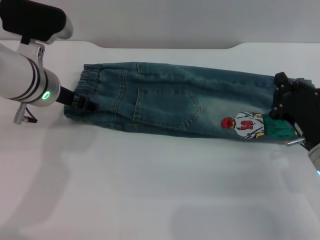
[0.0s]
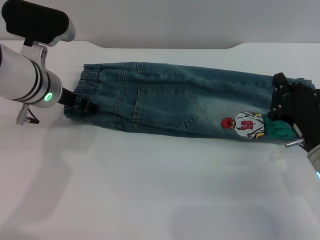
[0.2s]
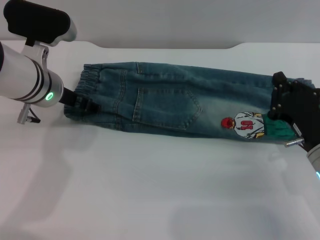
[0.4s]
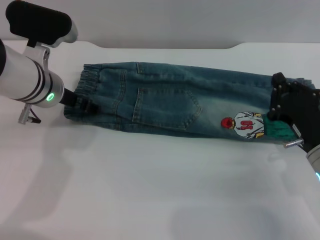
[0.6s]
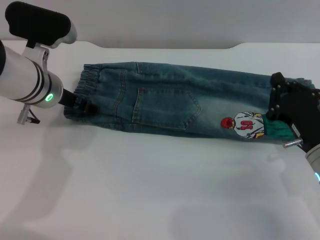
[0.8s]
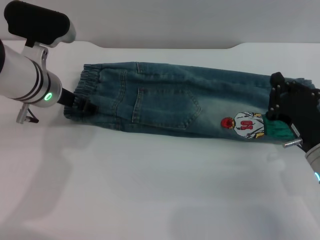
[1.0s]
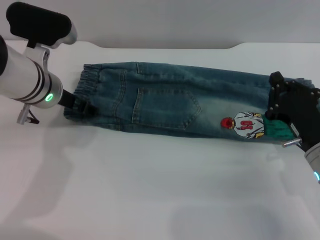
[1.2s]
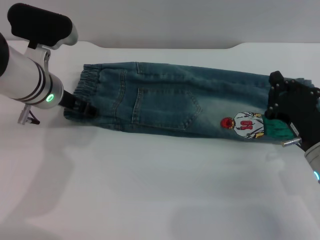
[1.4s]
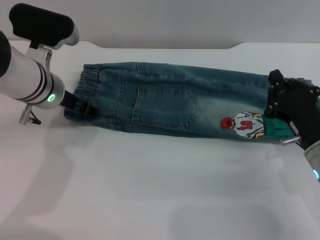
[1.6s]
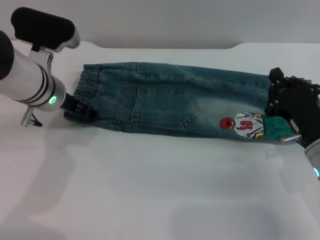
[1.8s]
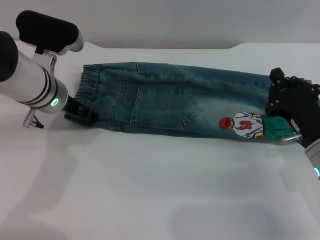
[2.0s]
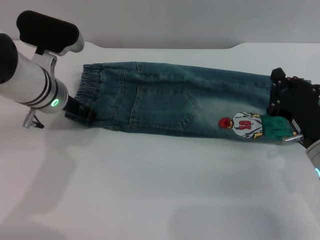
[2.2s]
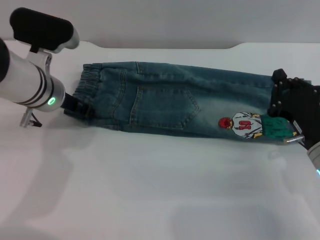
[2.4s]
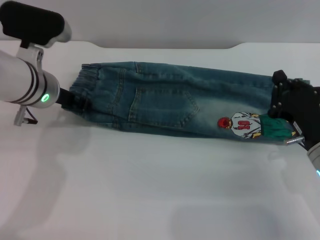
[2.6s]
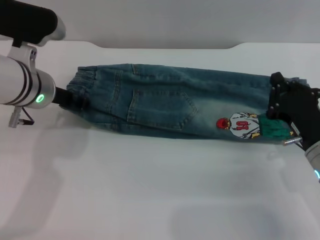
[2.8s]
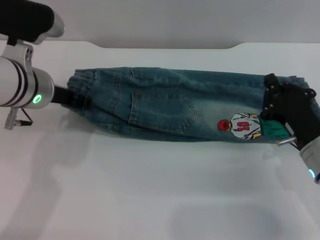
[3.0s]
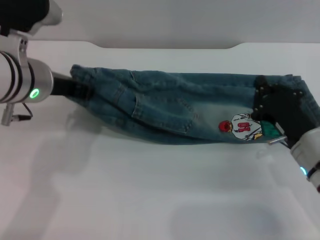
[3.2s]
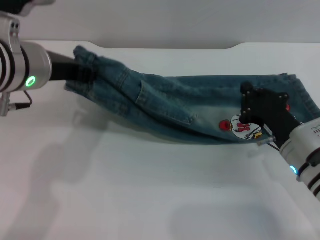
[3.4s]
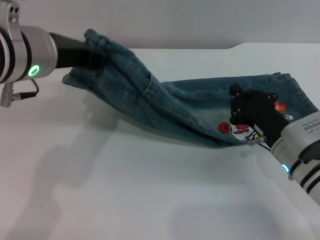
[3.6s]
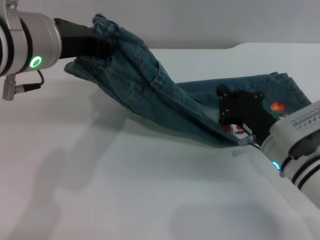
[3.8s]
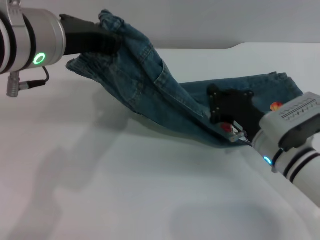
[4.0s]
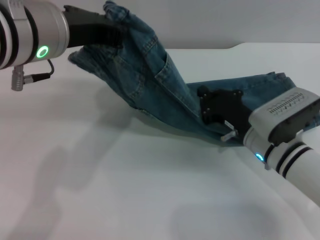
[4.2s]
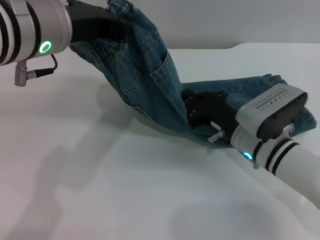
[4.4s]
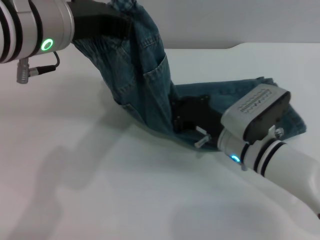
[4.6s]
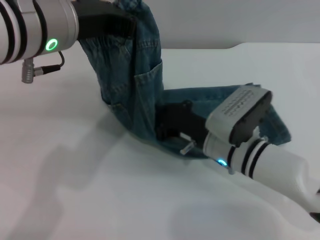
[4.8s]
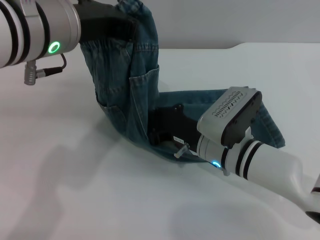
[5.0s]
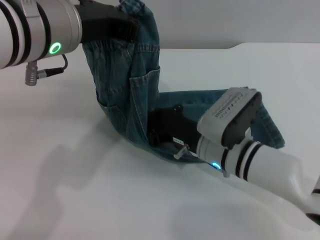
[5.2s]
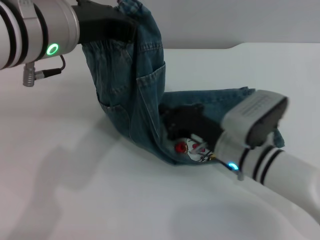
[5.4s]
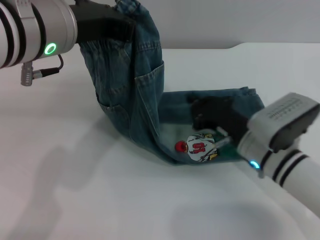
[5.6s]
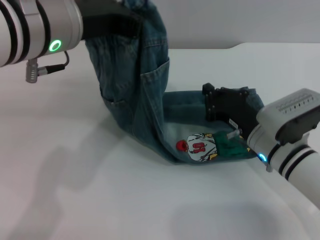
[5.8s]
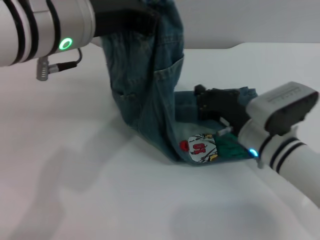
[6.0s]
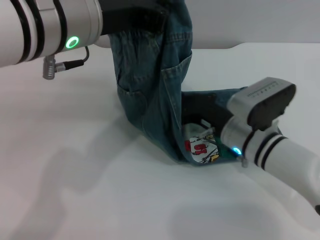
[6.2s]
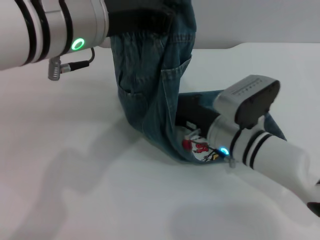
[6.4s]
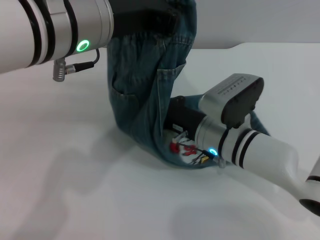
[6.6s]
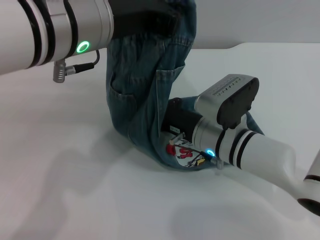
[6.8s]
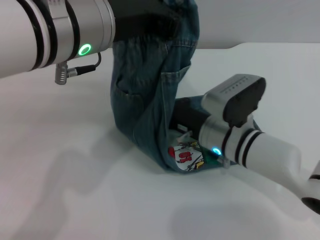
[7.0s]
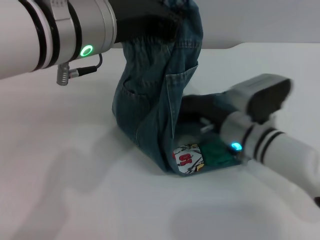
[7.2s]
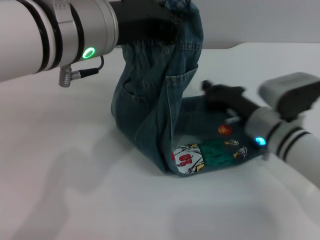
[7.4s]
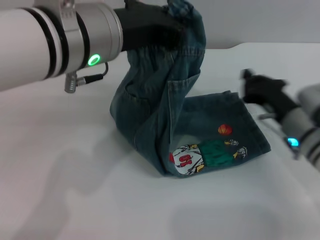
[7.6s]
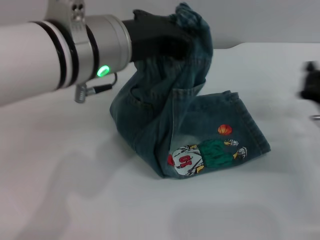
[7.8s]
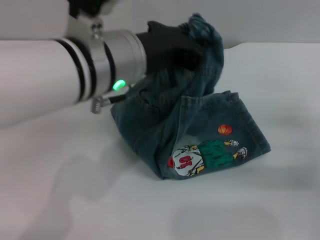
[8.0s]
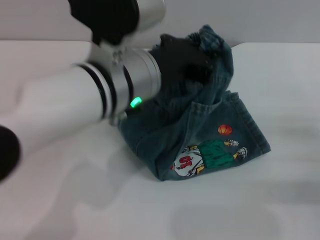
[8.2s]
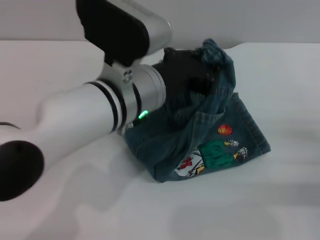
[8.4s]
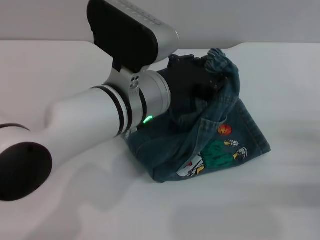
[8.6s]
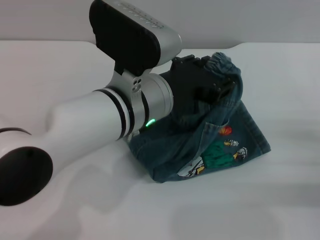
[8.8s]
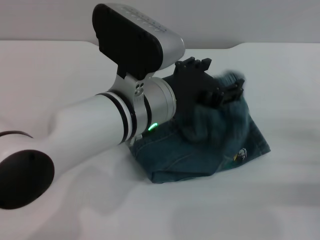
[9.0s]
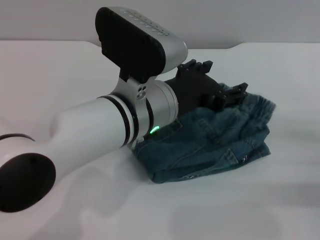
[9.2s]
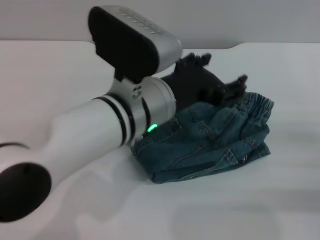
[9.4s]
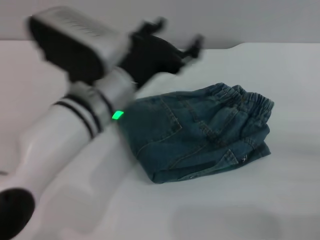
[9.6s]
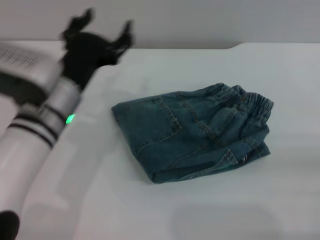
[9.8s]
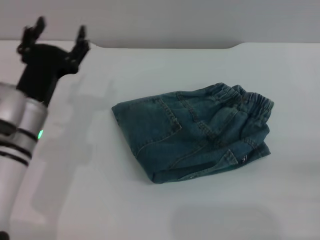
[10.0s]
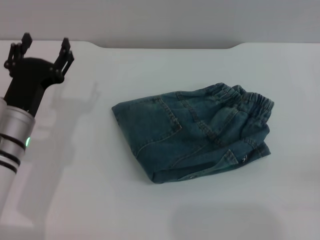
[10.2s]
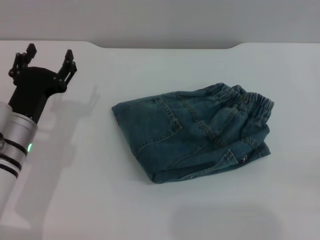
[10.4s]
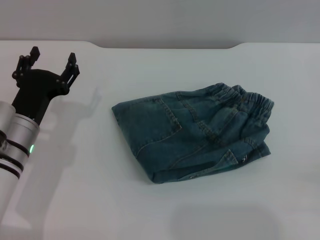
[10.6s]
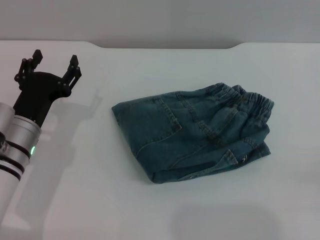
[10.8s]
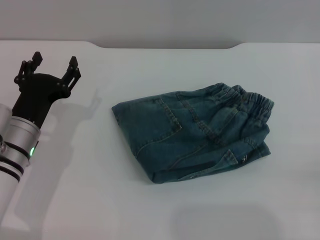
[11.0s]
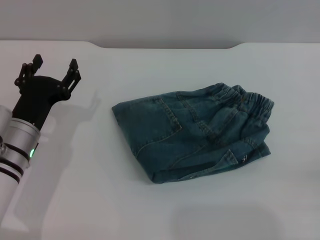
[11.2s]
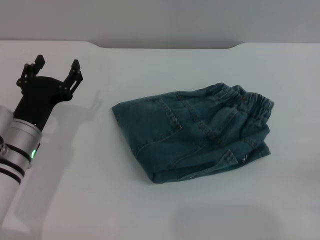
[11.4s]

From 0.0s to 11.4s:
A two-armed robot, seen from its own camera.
Step, from 0.0s to 9.2s: Fold the pants from left to right with the left gripper.
From 0.0s to 1.4s: The grippers make only small movements.
From 1.4s to 2.8s: The left gripper closes its fingers.
From 2.8s to 4.2s: The right gripper shifts roughly 10 cm to the left and forward. The left gripper heads upward and backward, covering some 15 cm.
From 5.6s to 7.2s: The right gripper reaches about 5 cm to the left, then returns.
From 7.2s to 8.6s: The right gripper travels to the right and backward by approximately 20 cm; the left gripper heads downward, covering roughly 10 cm.
From 8.6s to 10.0s: The right gripper moves backward, some 5 cm. The left gripper is displaced to the left and downward by approximately 15 cm, and opens its fingers.
From 10.0s to 11.4s: The left gripper shifts by some 5 cm.
